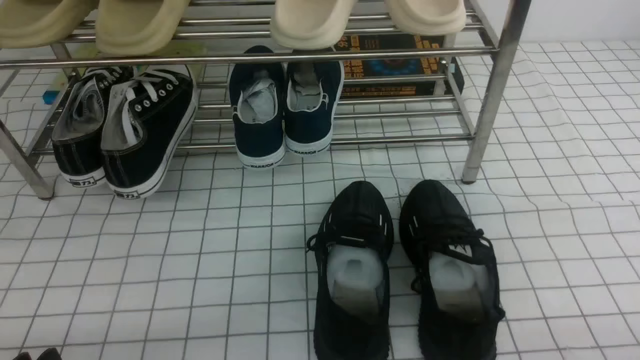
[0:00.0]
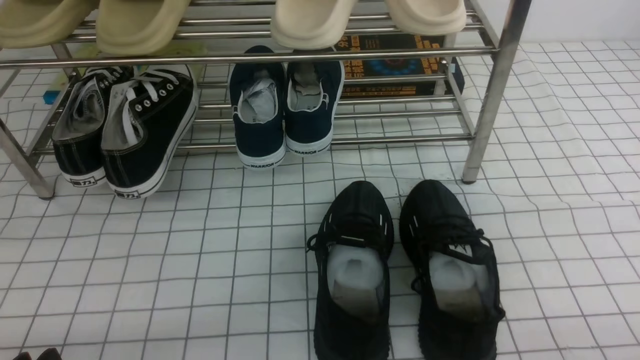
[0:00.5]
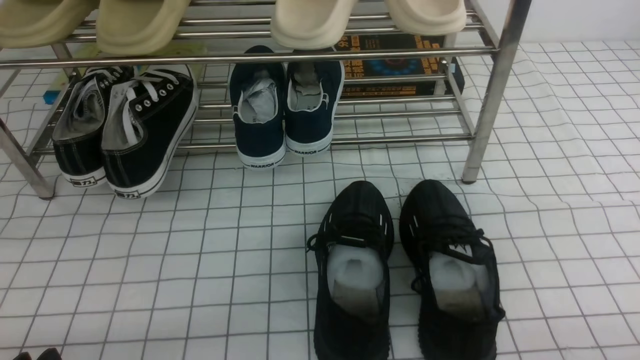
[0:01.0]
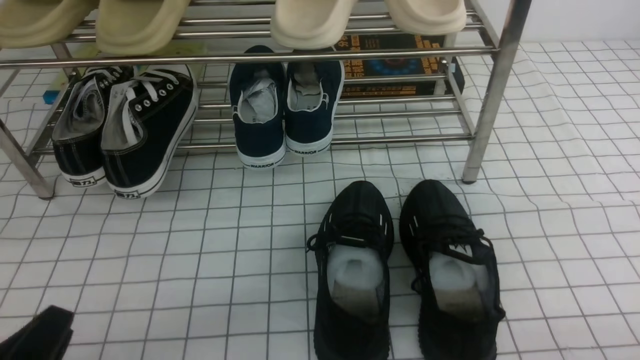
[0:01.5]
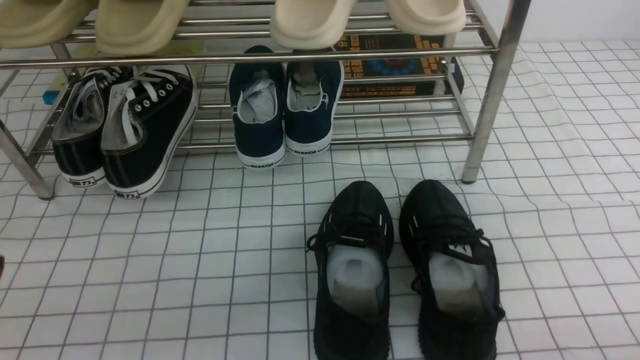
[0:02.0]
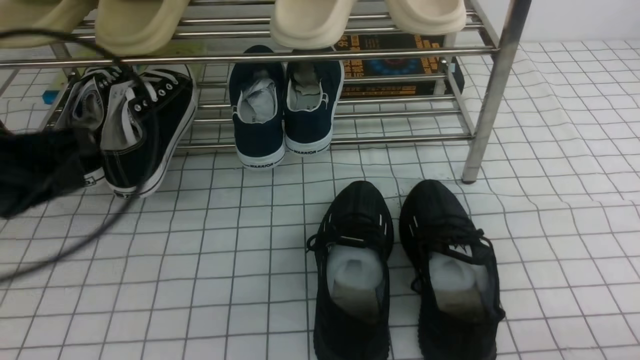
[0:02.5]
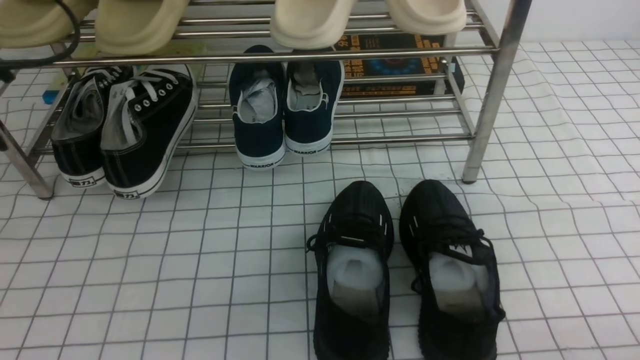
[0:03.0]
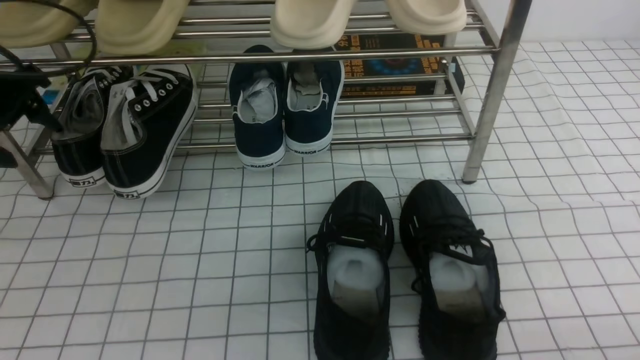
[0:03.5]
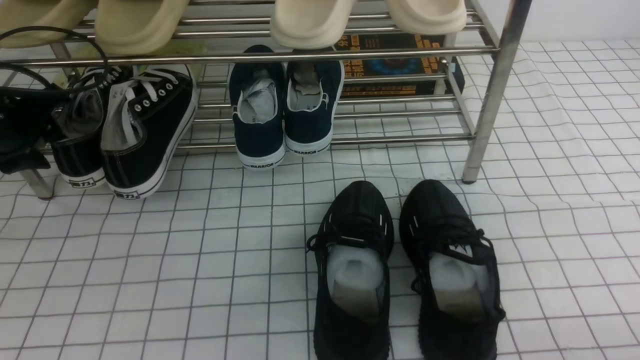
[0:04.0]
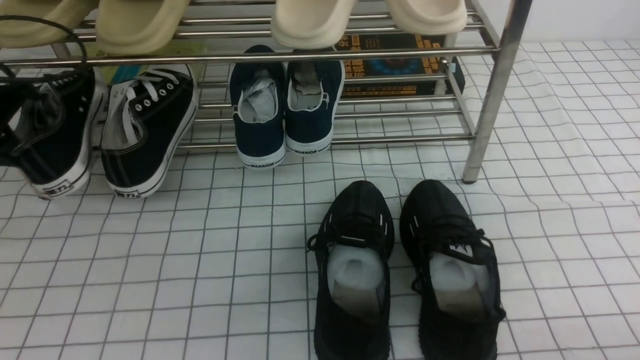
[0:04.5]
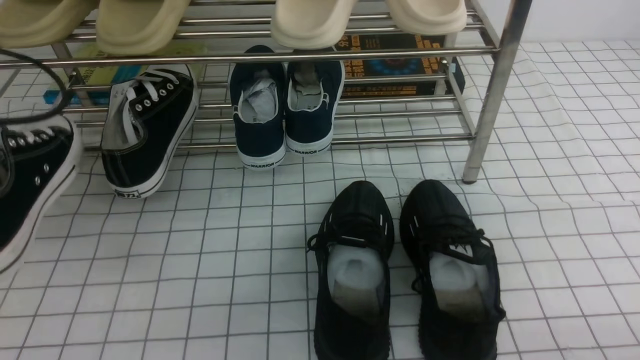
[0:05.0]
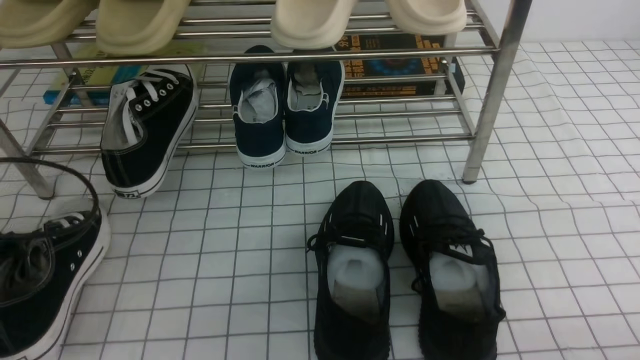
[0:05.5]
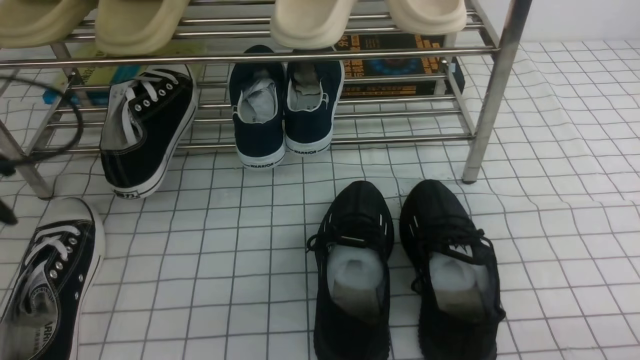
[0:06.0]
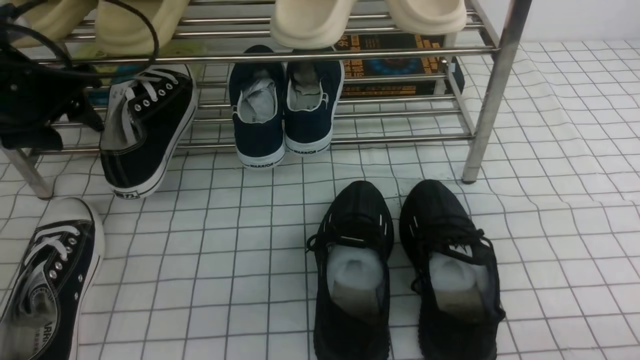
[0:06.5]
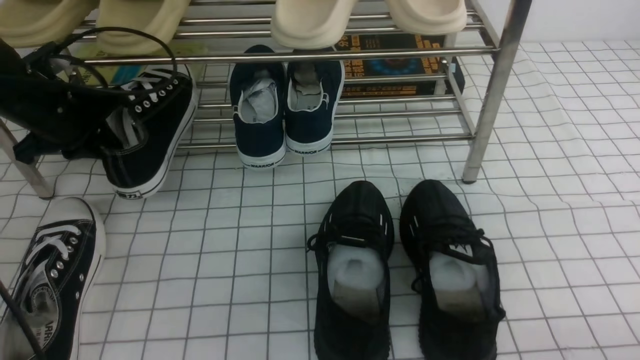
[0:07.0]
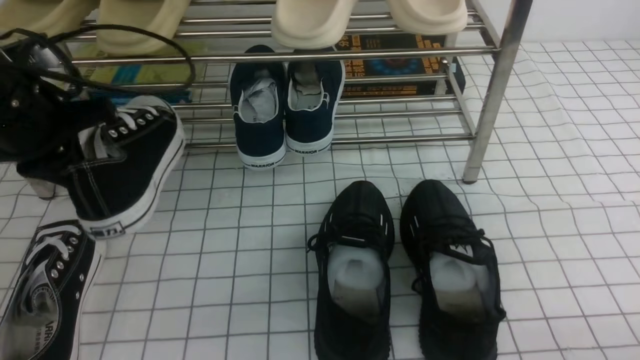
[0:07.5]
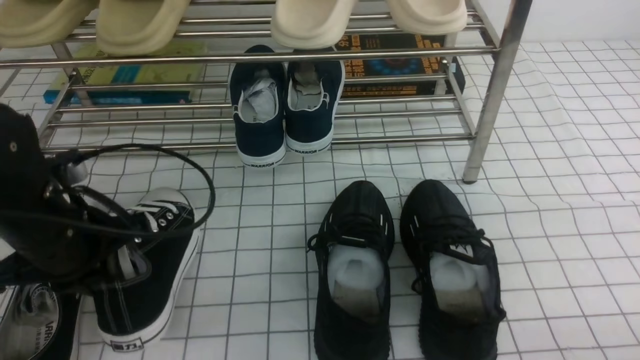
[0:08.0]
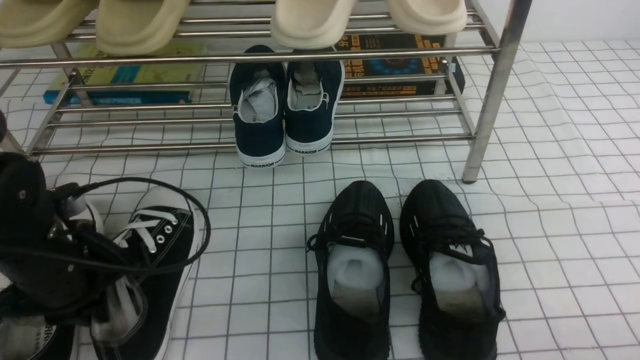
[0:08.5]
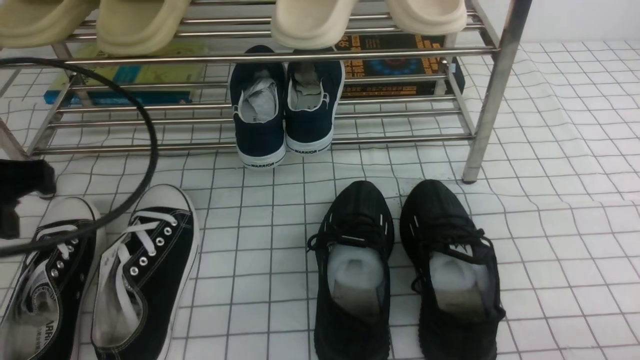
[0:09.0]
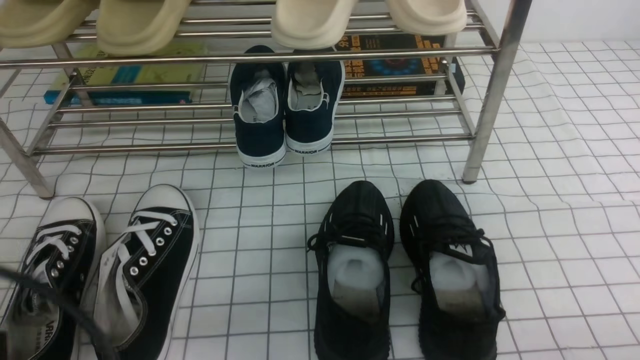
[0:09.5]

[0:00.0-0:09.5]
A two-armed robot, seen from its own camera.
Step, 0:00.0 to 0:04.0: use the left arm to clamp a shoe on the left side of the shoe rack.
Step, 0:04.5 to 0:05.5: Use your left arm to remove the clamped shoe from the shoe rack and put it down.
Step, 0:06.5 to 0:07.0: use the left arm to clamp a shoe on the left side of the shoe rack.
Step, 0:07.5 to 0:08.5: Use your left arm to remove the clamped shoe from the shoe rack and put it down.
0:02.0 to 0:04.0: The left gripper goes roughly 30 cm forward, and opens.
0:04.0 to 0:05.5: The left gripper shifts about 15 cm backward, and closes its fingers.
0:05.5 to 0:07.5: The left gripper goes about 15 cm forward, to the right and upward, and opens, then closes once more.
0:07.5 to 0:09.5: The left gripper is displaced backward by some 25 cm.

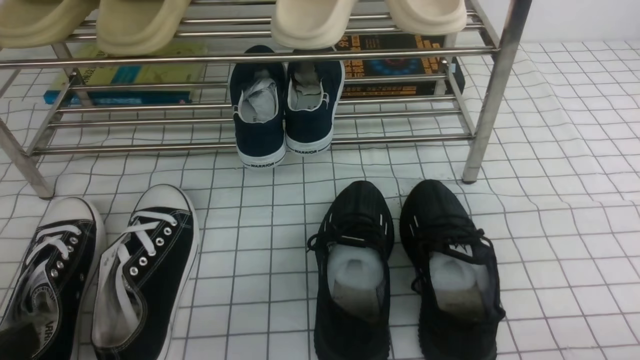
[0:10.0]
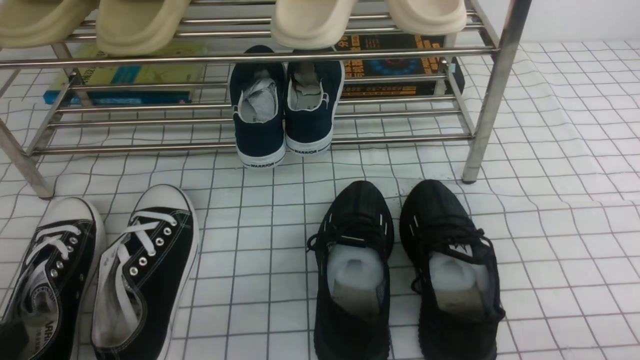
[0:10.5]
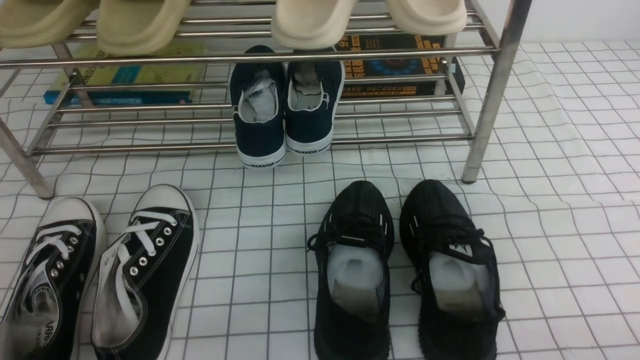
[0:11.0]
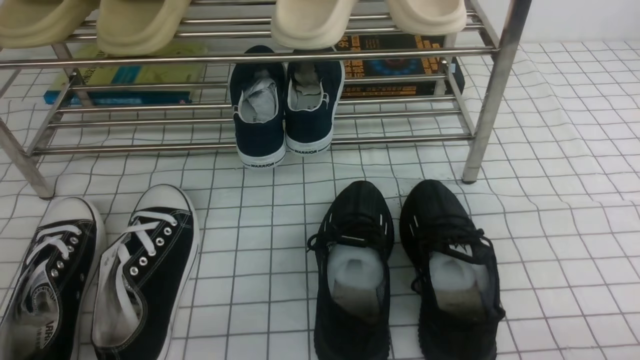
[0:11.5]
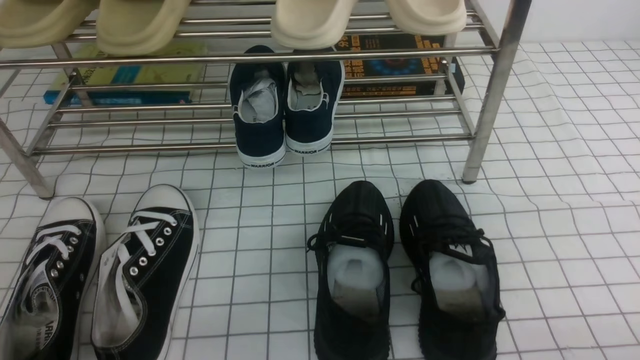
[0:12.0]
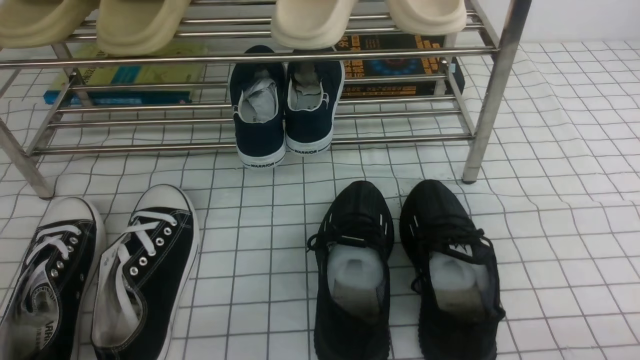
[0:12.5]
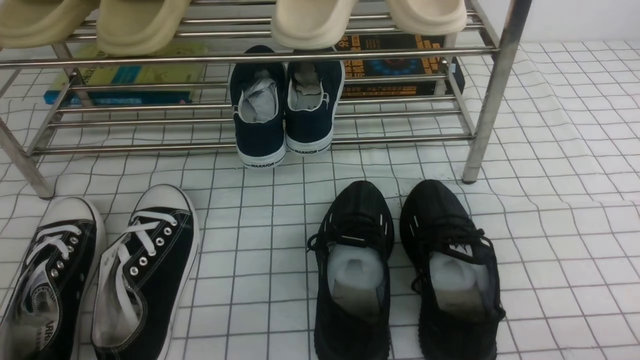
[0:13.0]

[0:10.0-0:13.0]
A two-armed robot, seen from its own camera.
0:11.5 to 0:13.0: The two grippers keep their place.
